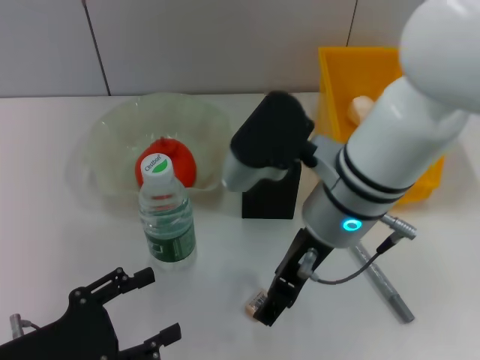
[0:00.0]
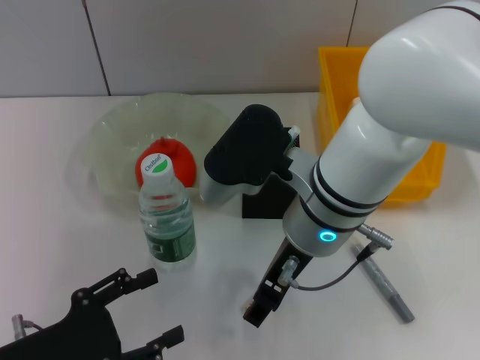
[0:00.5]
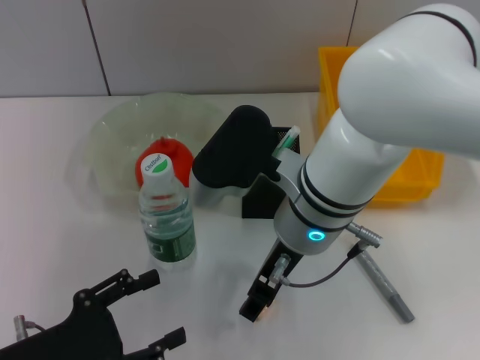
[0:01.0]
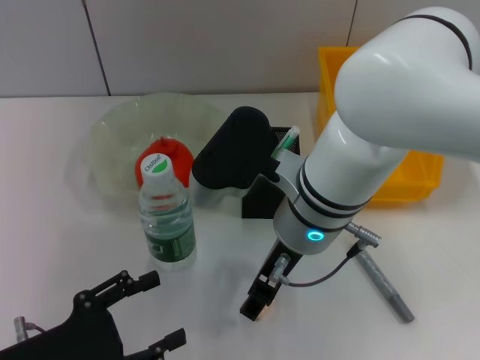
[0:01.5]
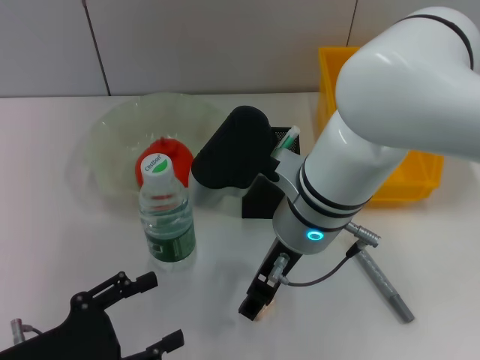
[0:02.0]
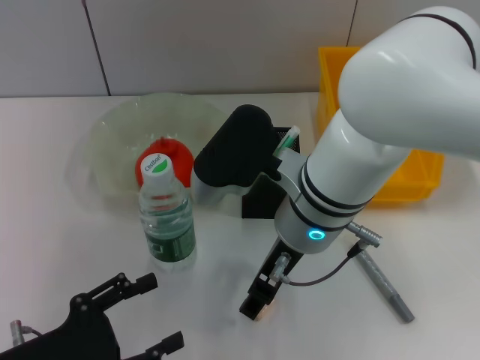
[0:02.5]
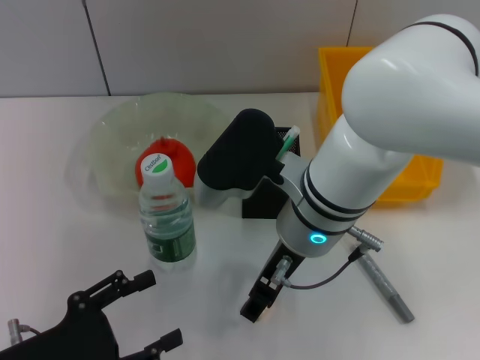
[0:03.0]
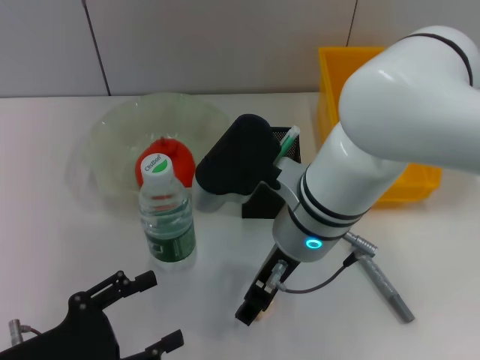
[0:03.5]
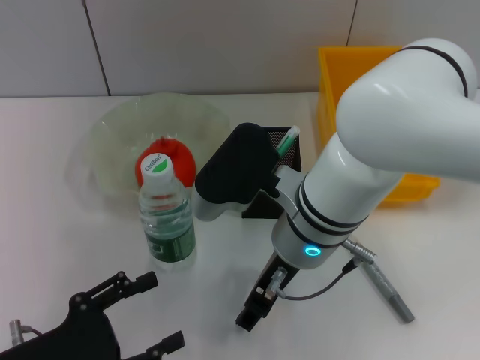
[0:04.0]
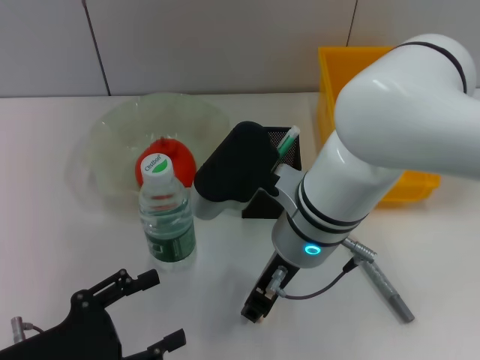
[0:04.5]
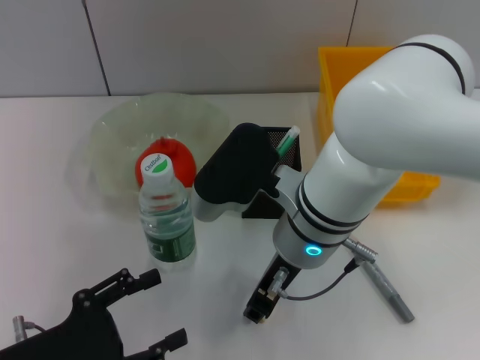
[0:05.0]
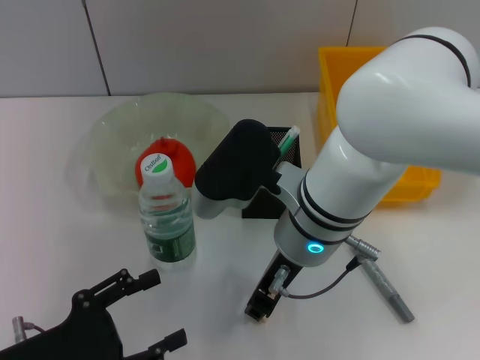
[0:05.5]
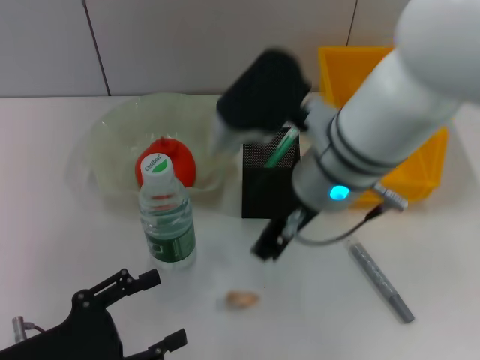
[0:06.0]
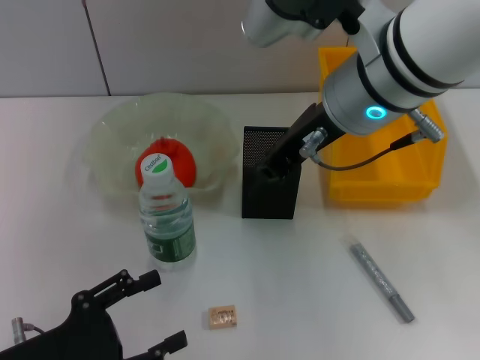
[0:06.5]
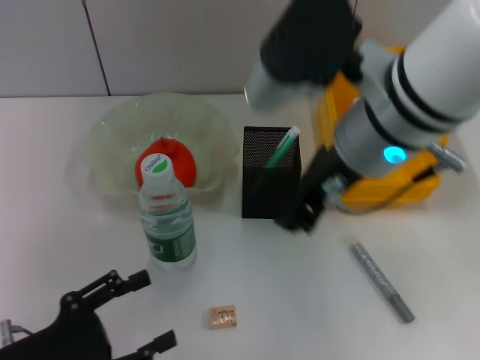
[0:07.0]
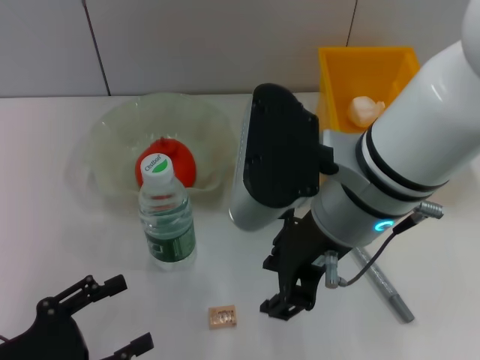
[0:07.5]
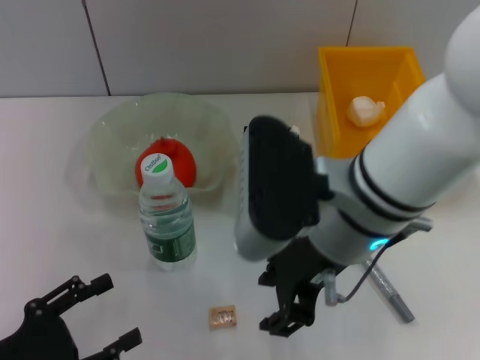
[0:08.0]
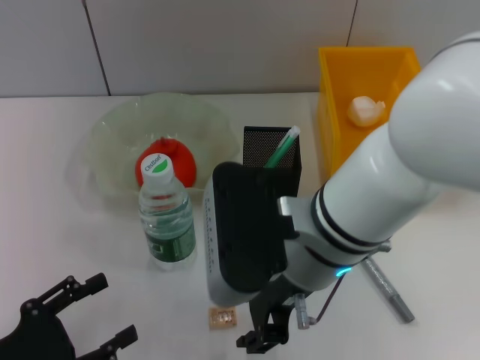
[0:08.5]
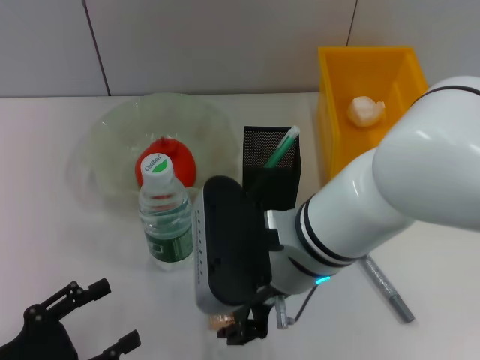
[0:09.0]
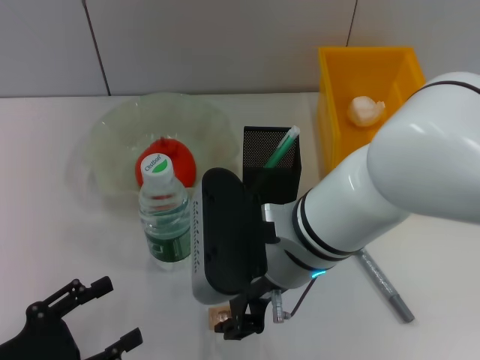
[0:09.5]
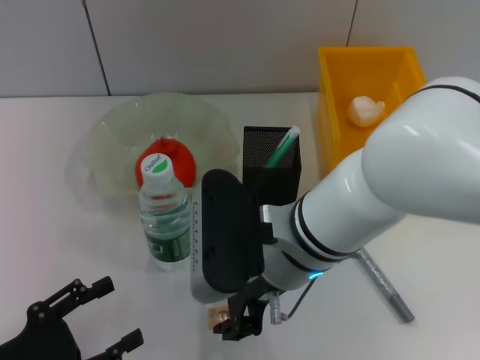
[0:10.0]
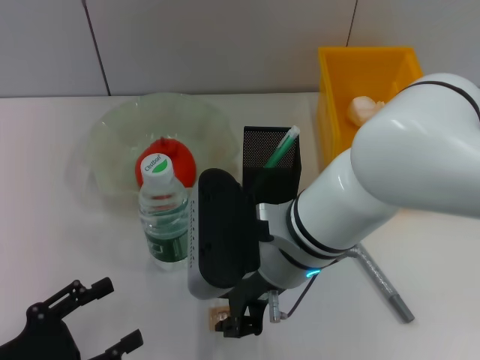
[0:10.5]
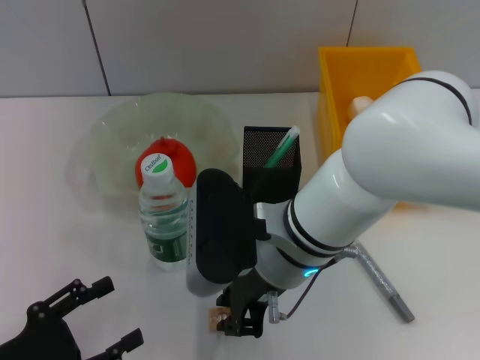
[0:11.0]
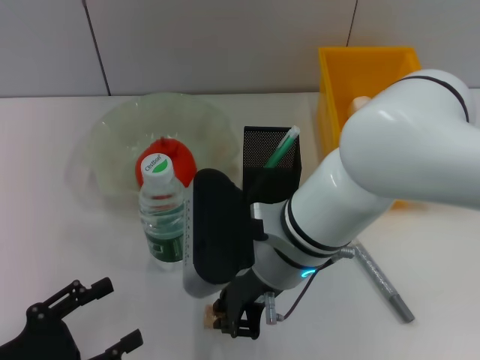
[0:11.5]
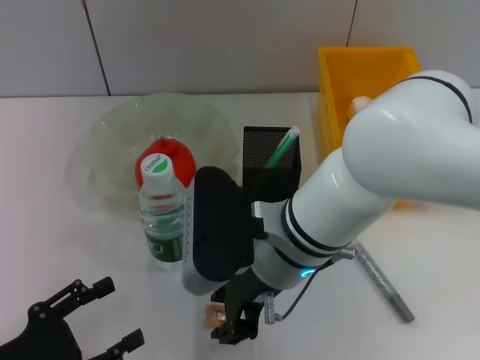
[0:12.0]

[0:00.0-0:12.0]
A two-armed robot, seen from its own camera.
0:02.0 to 0:04.0: The grippers move only a little.
0:04.0 to 0:06.0: The right gripper goes roughly 5 cm upward, and closes its fingers.
0:06.0 to 0:08.0: The right gripper opens.
0:08.0 to 0:10.0: The right gripper is displaced downward by about 5 cm.
0:10.0 to 0:12.0: The two grippers keep their place.

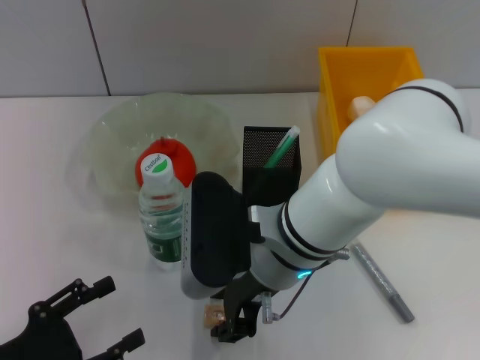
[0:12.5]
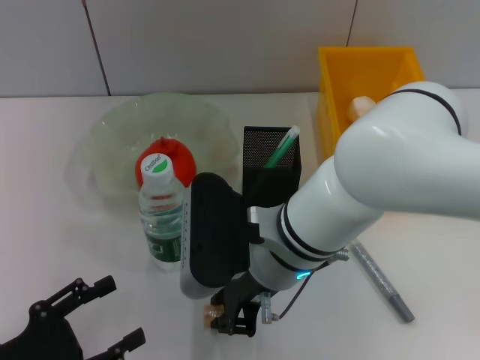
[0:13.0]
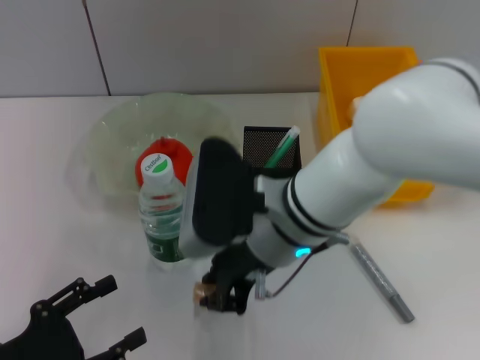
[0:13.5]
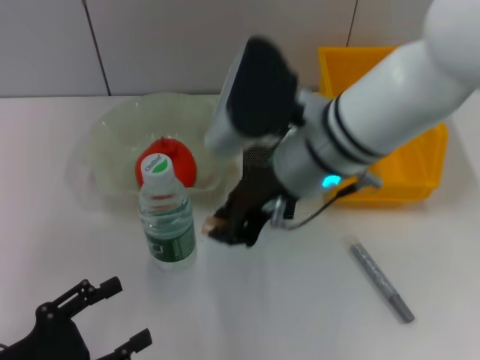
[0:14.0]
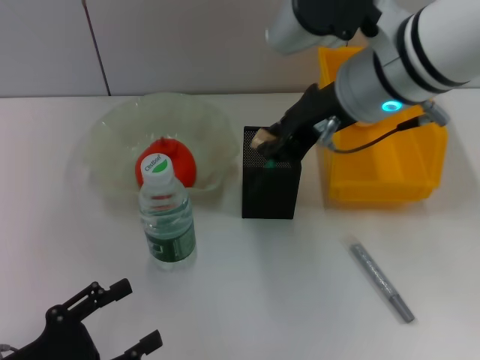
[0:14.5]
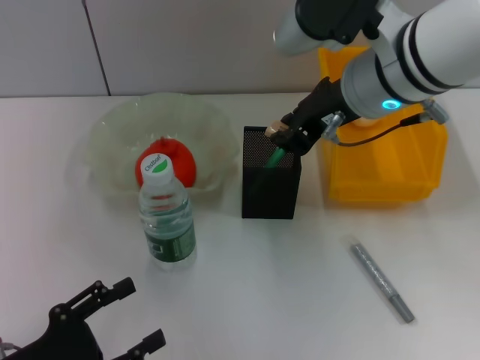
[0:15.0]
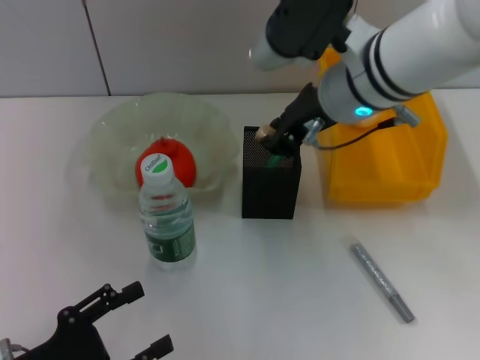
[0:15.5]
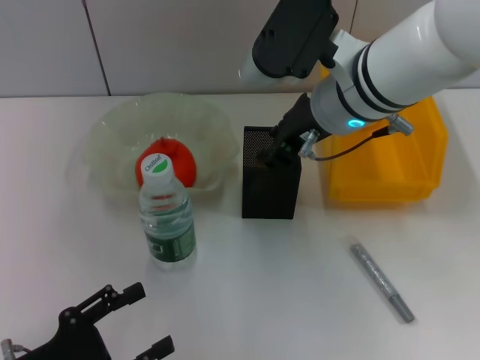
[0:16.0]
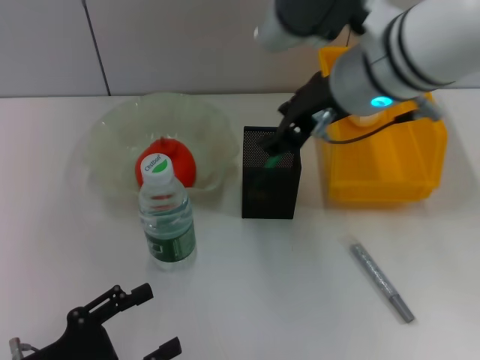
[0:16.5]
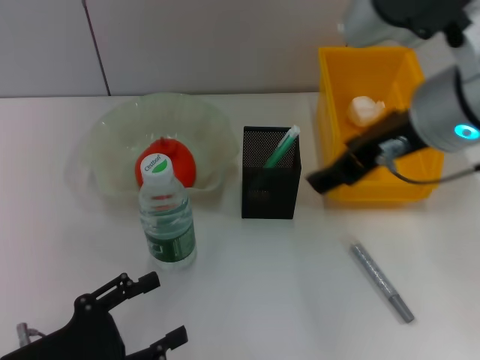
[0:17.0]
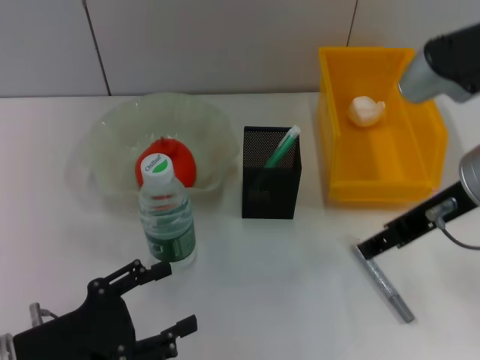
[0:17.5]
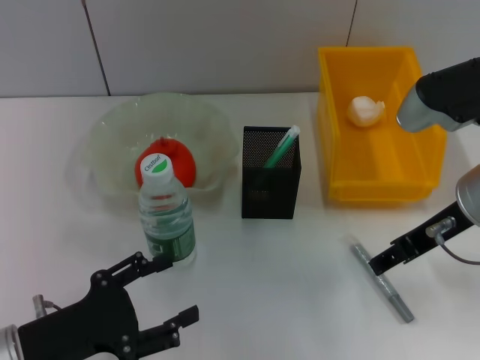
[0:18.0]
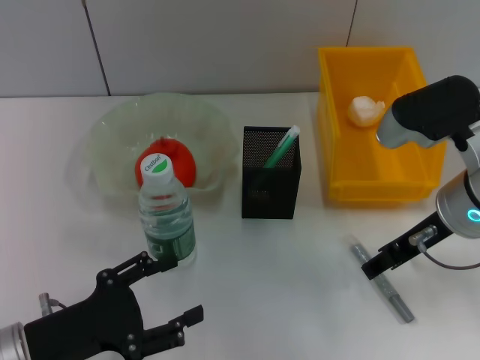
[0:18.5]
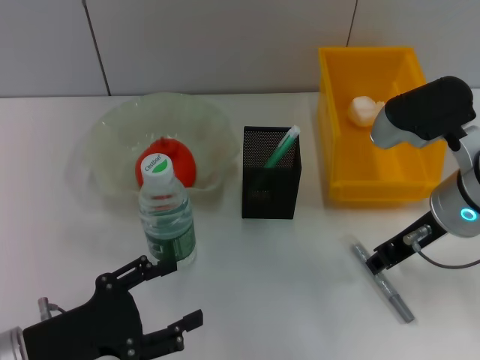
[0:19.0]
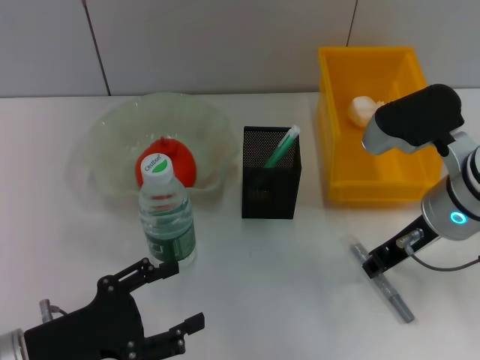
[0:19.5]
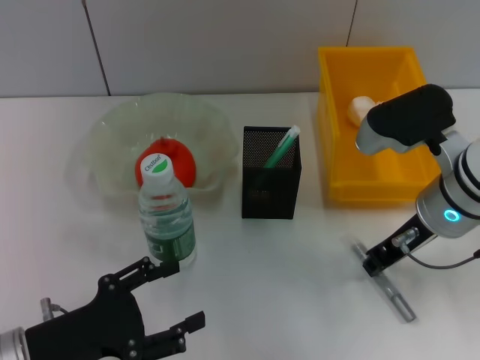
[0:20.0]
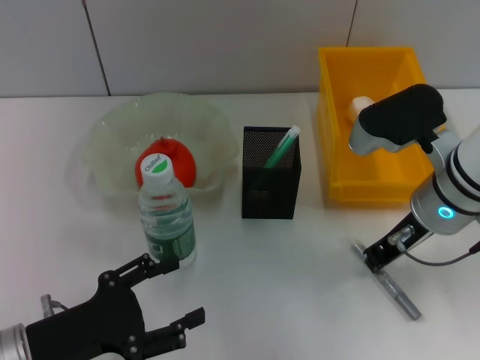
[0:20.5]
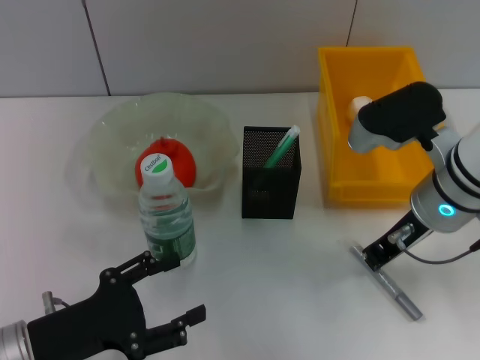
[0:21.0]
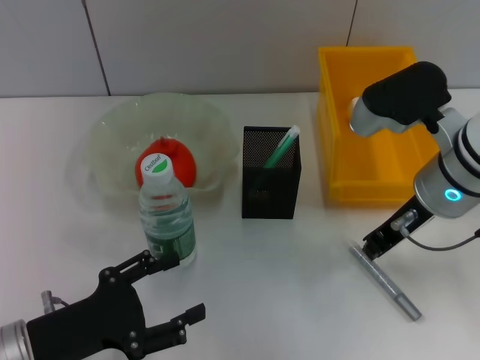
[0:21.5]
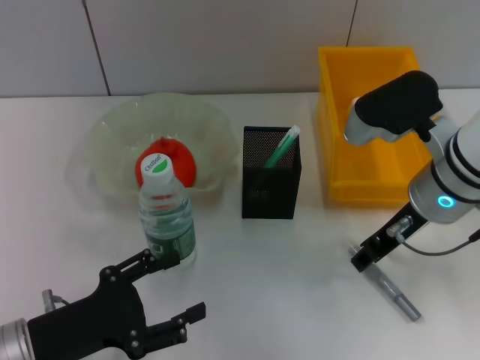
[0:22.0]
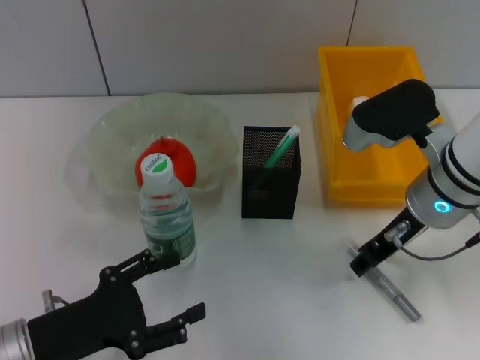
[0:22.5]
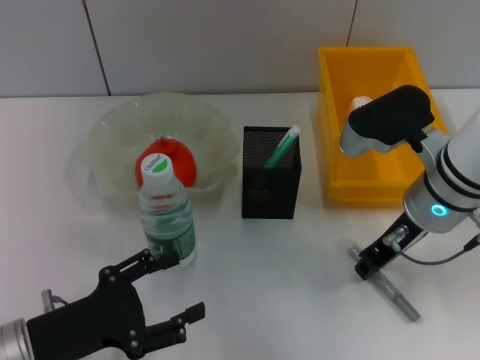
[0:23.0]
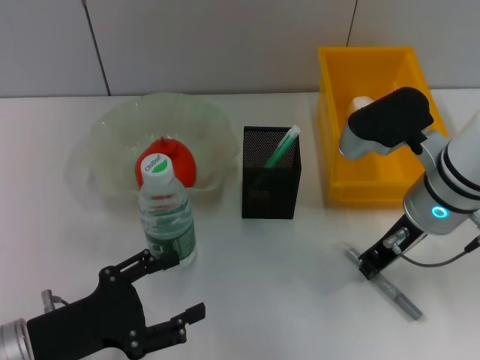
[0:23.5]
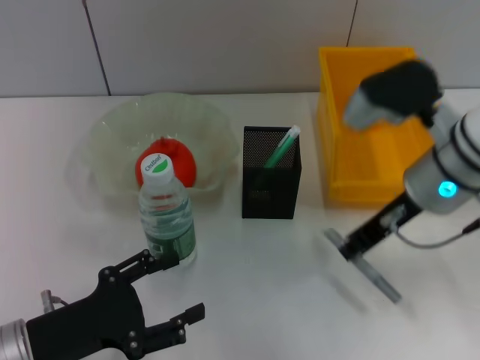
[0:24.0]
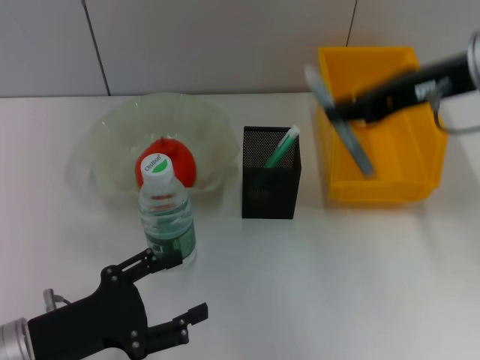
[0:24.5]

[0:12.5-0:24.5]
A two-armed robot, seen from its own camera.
Step, 0:13.5 to 0:16.0: Put the eraser into the pen holder with the right hand.
Step, 0:16.5 to 0:23.0: Grab the gray glue with the right hand.
0:12.5 to 0:14.5: The right gripper heads upward, to the right and forward, covering about 15 cm.
0:14.5 to 0:16.5: The right gripper opens its fingers.
0:16.5 to 0:18.5: The right gripper goes about 15 cm to the right and downward.
0:18.5 to 0:20.5: The right gripper closes its fingers.
0:20.5 to 0:22.5: The right gripper opens.
0:22.5 to 0:24.5: The right gripper goes about 15 cm upward, and closes up.

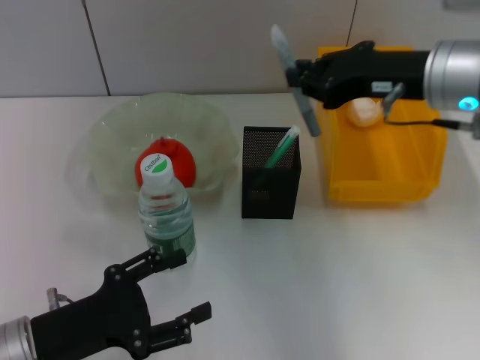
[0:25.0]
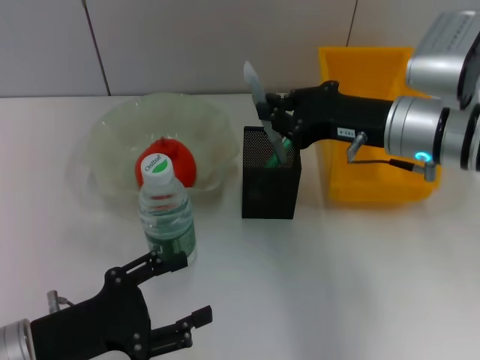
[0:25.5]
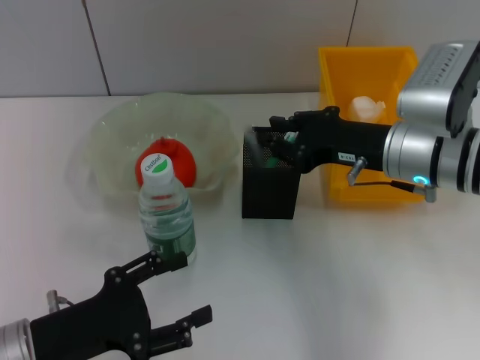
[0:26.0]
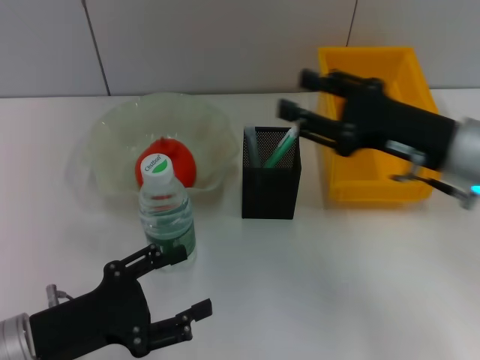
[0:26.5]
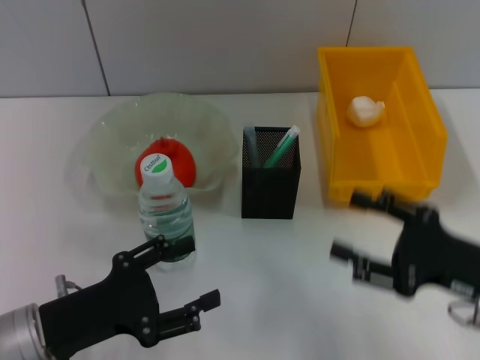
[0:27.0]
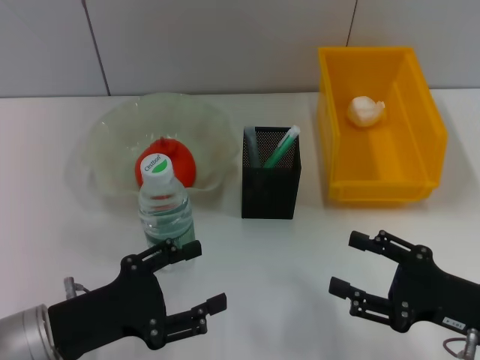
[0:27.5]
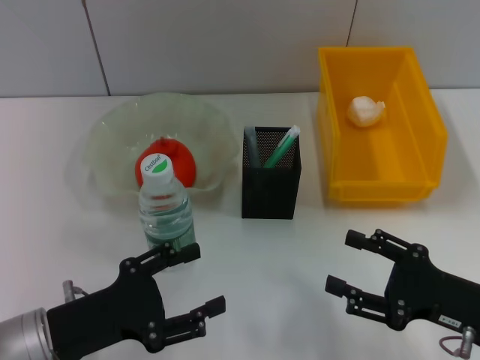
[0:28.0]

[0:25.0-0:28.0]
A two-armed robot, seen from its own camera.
0:25.0 to 0:26.5: The right gripper goes approximately 5 cm downward, and opens its fingers.
0:26.5 to 0:28.0: The right gripper heads backward and downward, covering roughly 15 cm.
